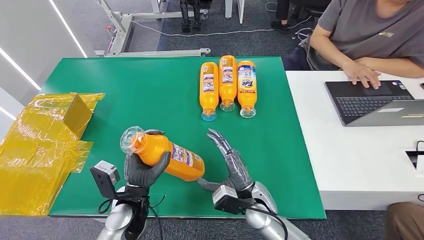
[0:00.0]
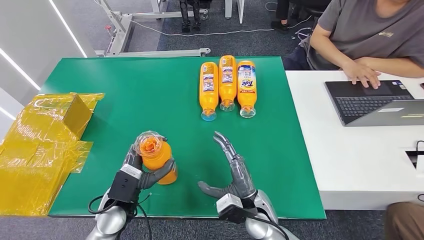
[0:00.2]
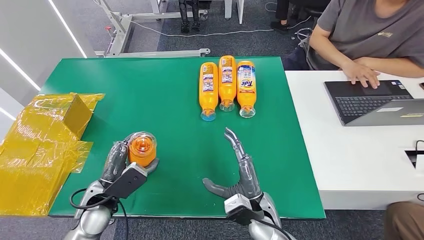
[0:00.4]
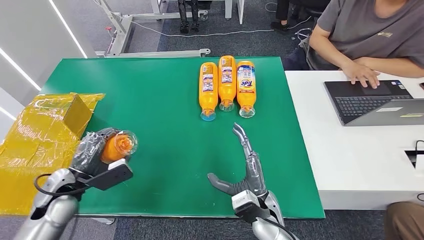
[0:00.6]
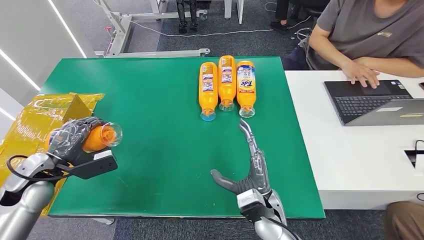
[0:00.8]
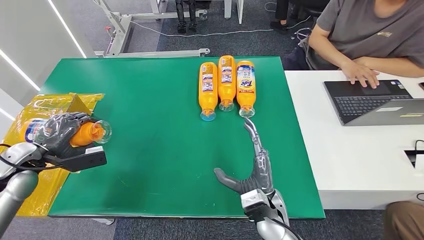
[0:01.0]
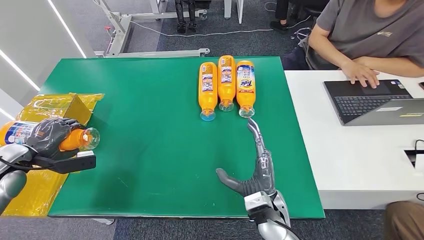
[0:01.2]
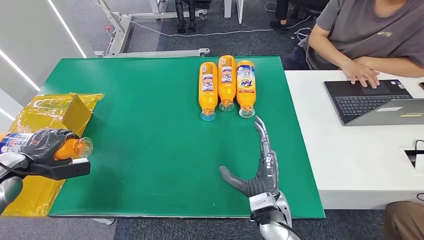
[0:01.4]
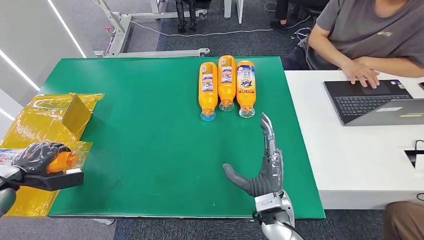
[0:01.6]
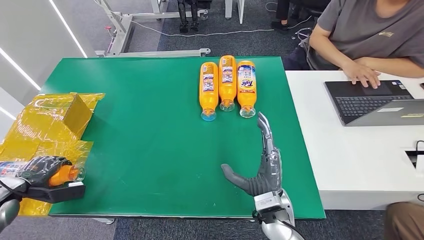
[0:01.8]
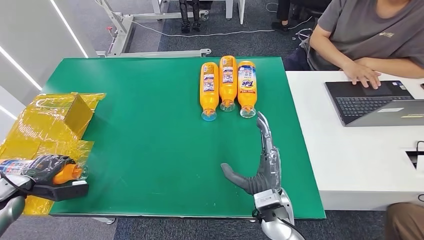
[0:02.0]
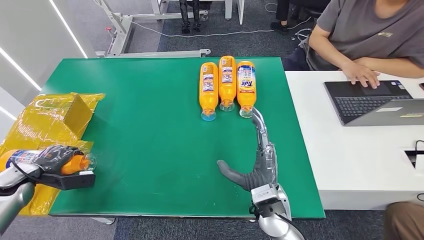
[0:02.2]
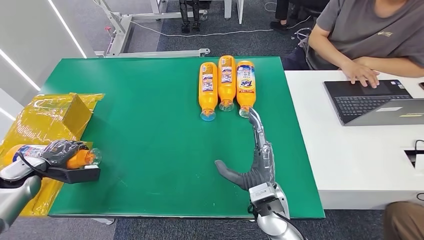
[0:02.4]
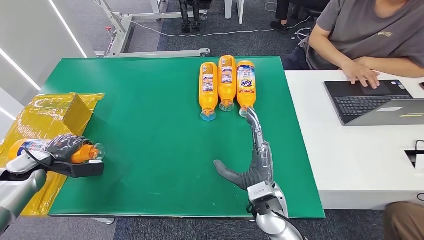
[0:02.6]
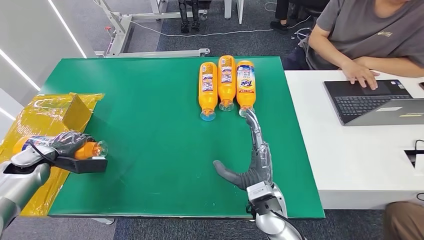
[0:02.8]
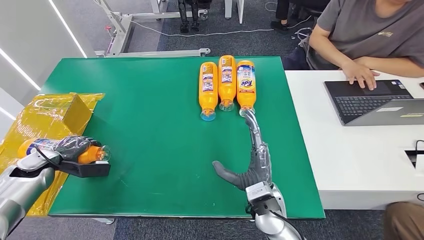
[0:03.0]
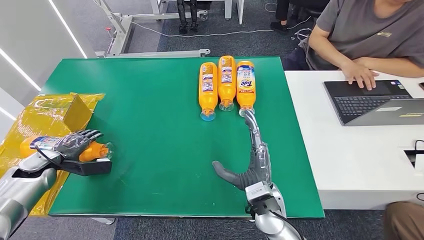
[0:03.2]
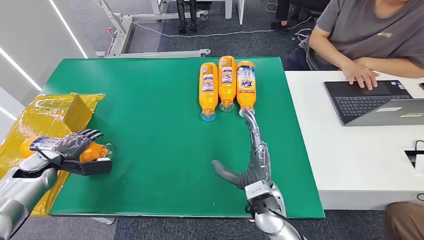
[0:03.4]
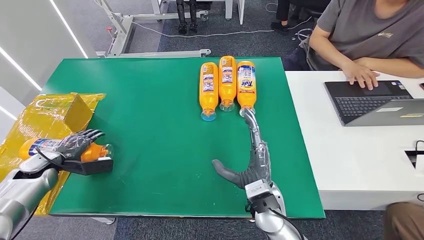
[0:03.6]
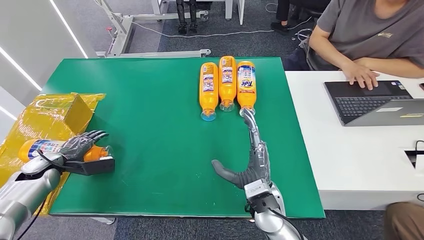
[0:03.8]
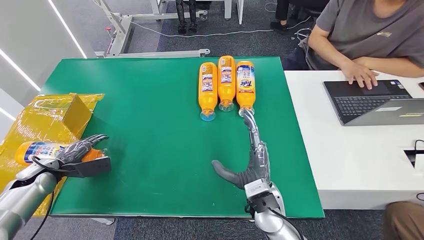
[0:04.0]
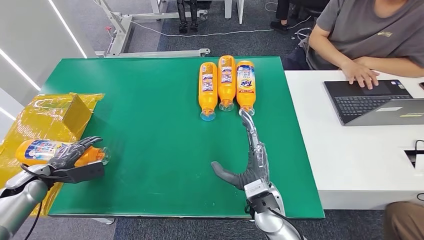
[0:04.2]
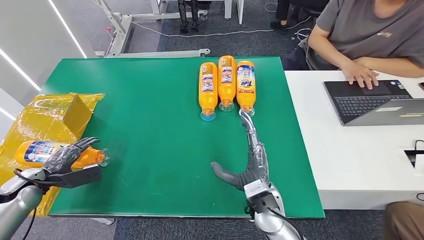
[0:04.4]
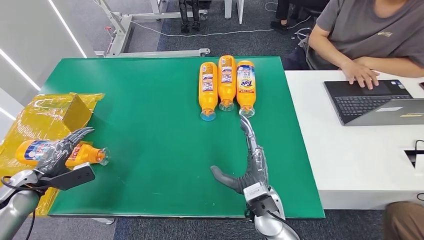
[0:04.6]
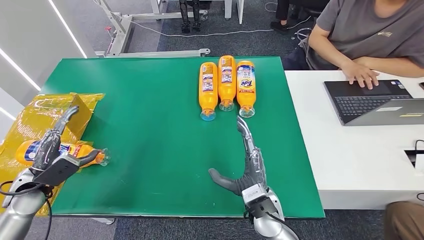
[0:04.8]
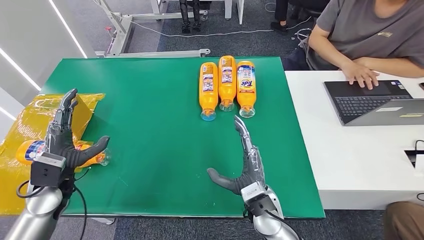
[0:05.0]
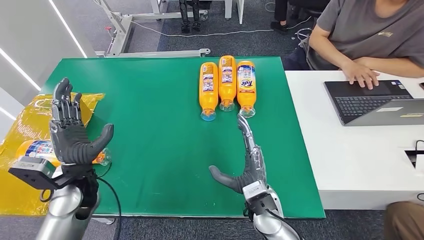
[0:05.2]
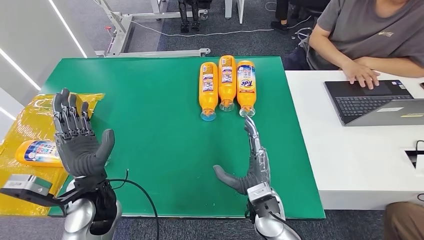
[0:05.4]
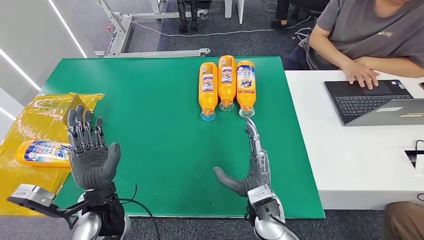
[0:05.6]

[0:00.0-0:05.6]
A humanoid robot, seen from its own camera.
Step, 0:00.0 to 0:05.6: Turn the bottle to the front side.
0:00.0 to 0:01.4: The right hand ends up some 5 cm from where it was. The left hand heads to the left, covering some 35 cm.
0:01.4 to 0:02.8: The left hand moves forward, about 5 cm.
0:02.8 to 0:04.2: The left hand moves about 5 cm.
0:04.2 to 0:05.6: The left hand heads to the right, covering about 30 cm.
